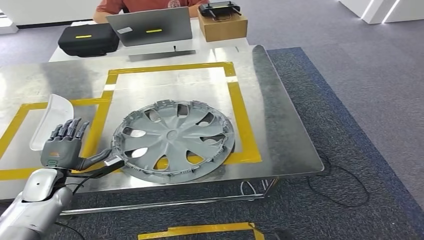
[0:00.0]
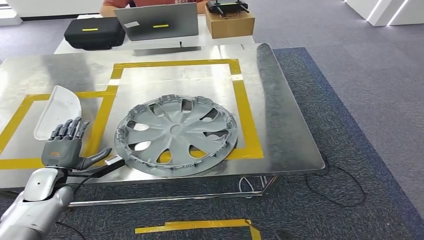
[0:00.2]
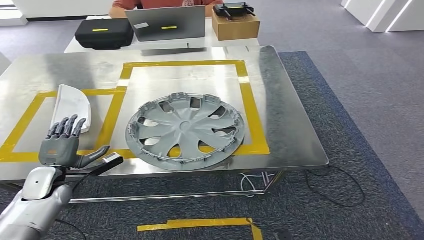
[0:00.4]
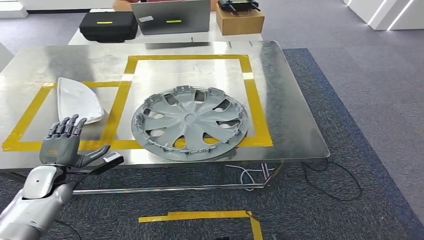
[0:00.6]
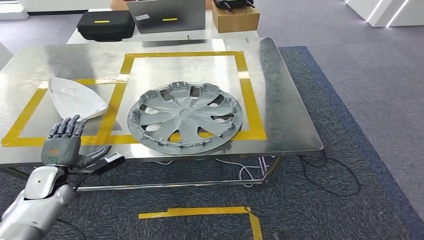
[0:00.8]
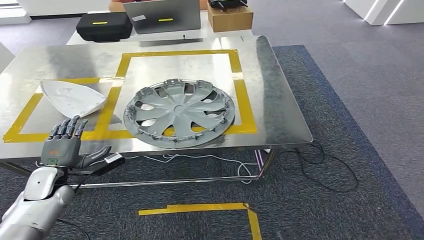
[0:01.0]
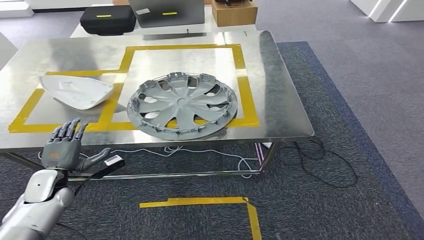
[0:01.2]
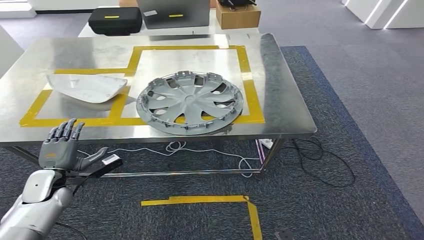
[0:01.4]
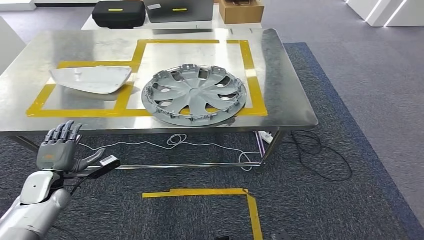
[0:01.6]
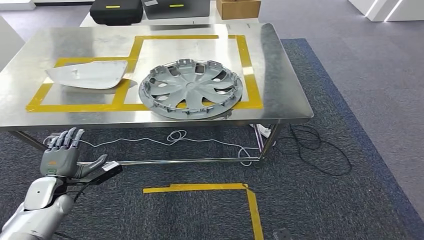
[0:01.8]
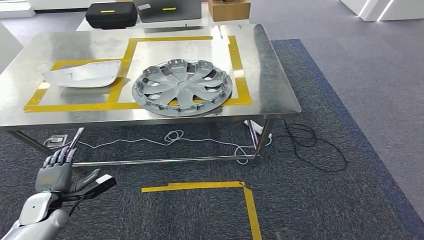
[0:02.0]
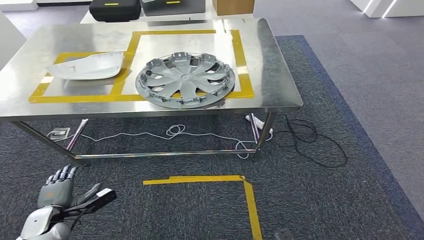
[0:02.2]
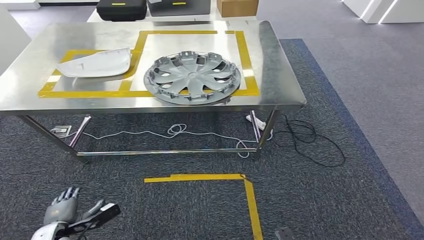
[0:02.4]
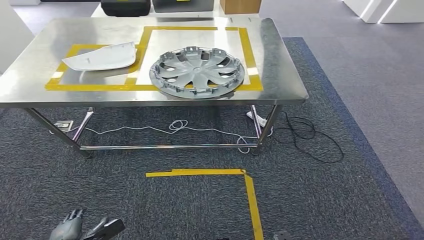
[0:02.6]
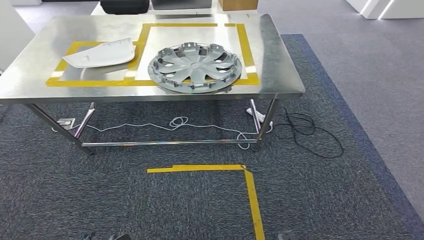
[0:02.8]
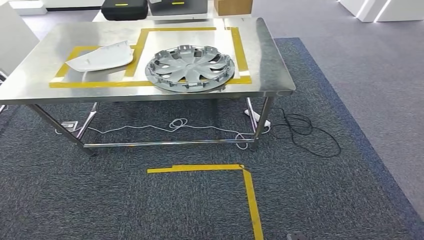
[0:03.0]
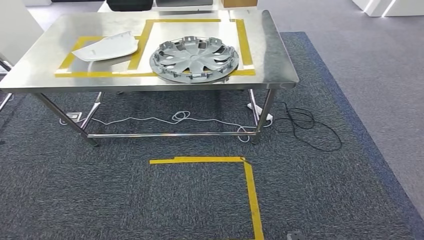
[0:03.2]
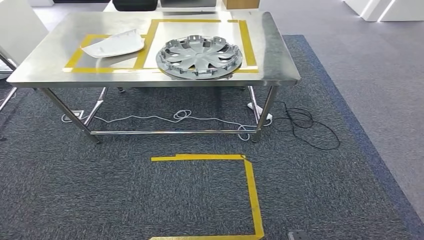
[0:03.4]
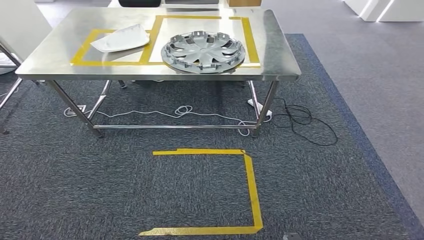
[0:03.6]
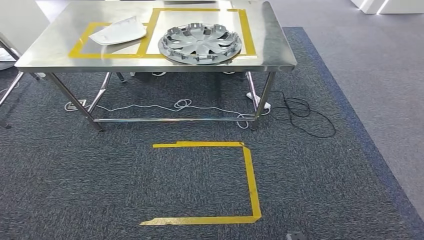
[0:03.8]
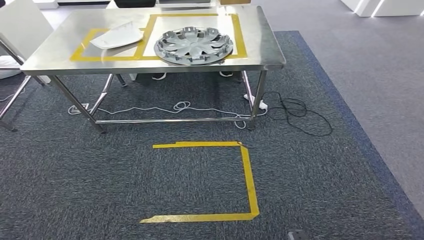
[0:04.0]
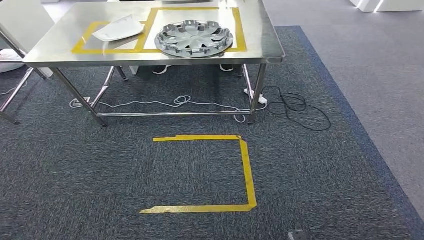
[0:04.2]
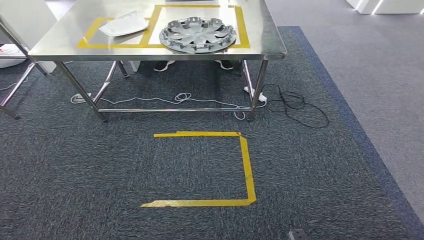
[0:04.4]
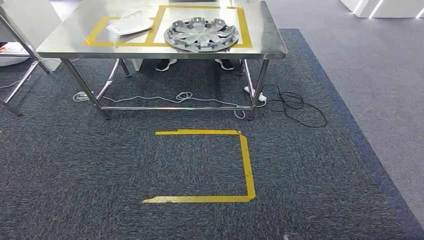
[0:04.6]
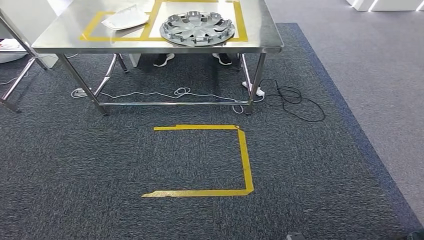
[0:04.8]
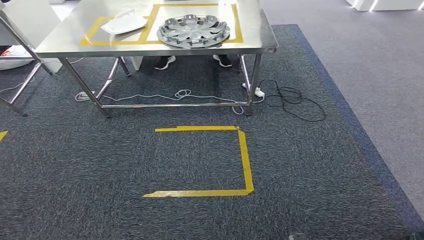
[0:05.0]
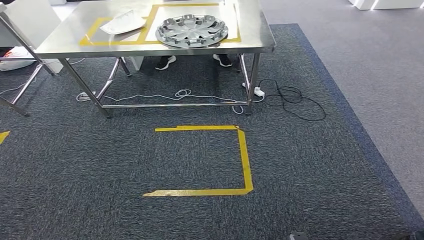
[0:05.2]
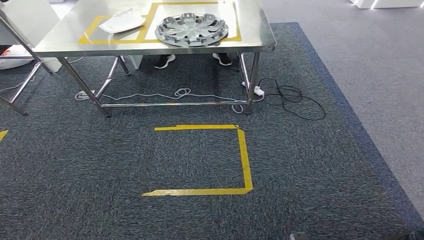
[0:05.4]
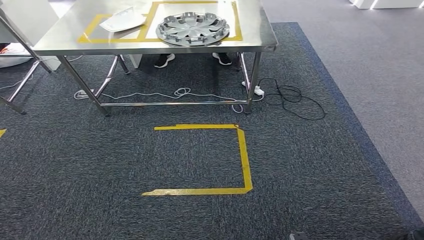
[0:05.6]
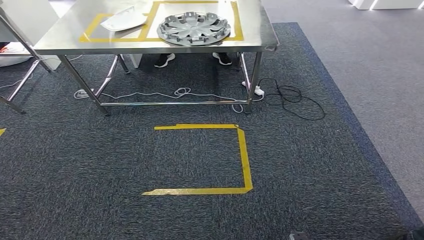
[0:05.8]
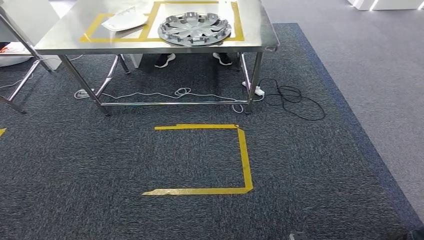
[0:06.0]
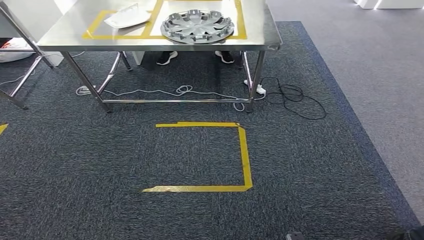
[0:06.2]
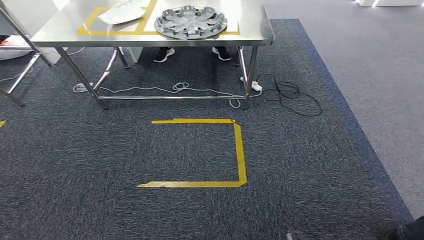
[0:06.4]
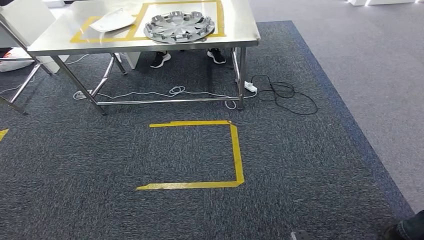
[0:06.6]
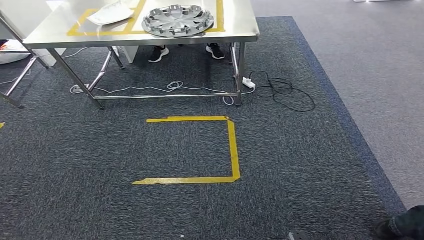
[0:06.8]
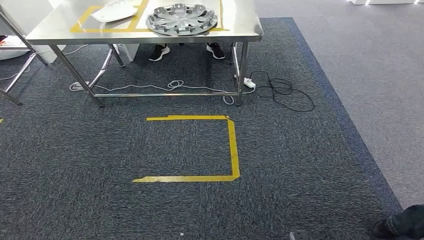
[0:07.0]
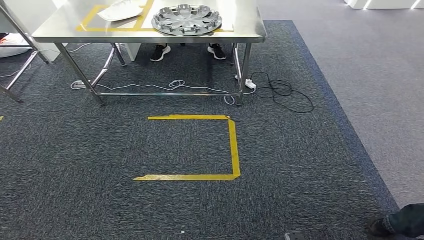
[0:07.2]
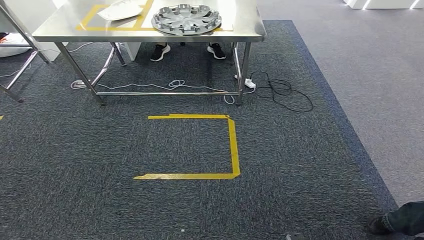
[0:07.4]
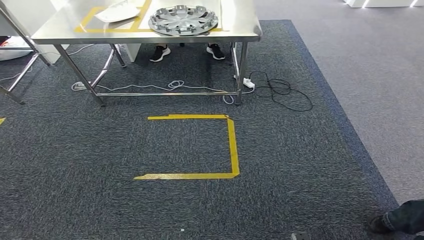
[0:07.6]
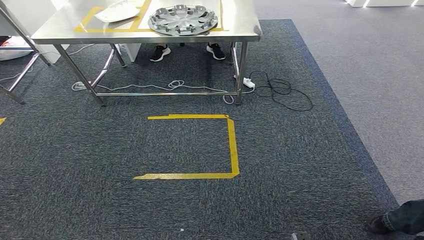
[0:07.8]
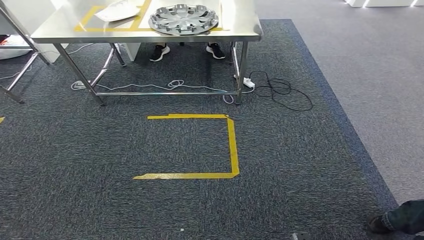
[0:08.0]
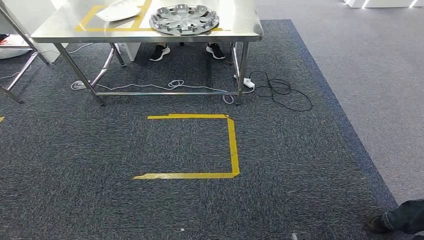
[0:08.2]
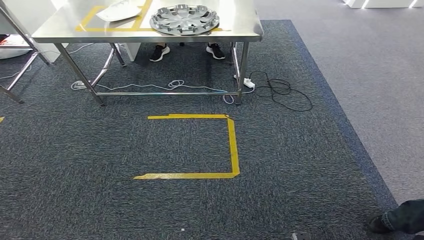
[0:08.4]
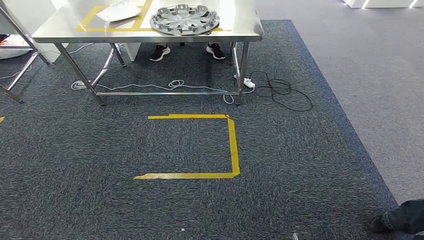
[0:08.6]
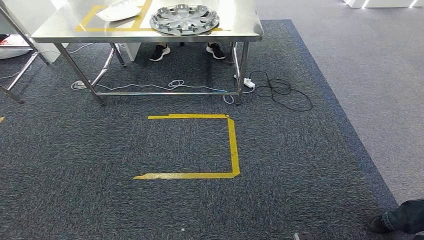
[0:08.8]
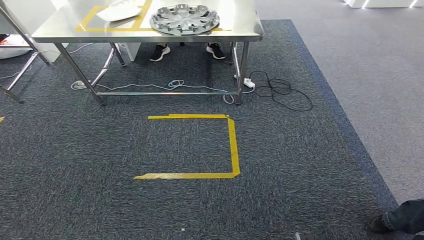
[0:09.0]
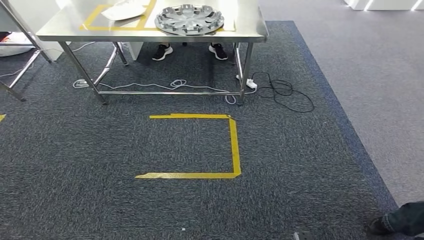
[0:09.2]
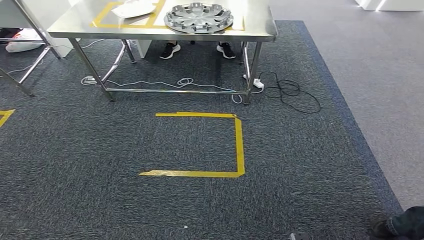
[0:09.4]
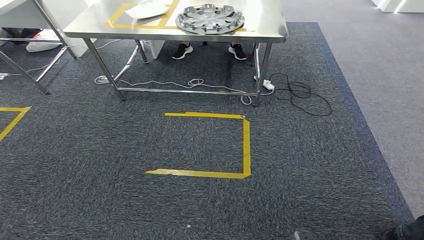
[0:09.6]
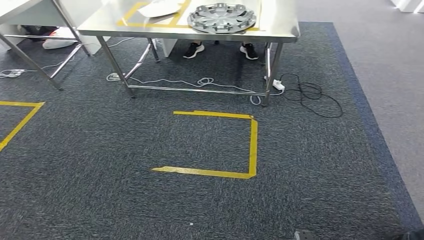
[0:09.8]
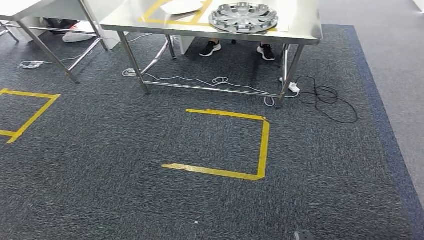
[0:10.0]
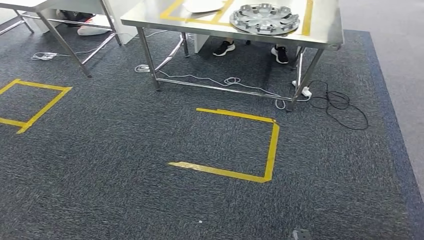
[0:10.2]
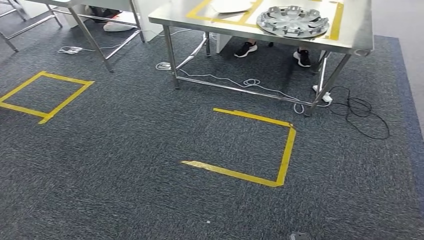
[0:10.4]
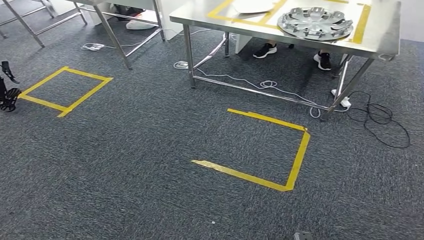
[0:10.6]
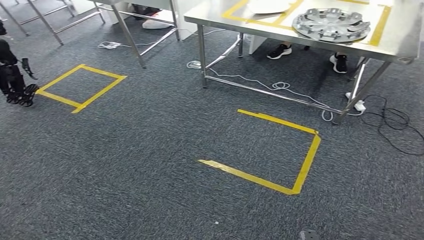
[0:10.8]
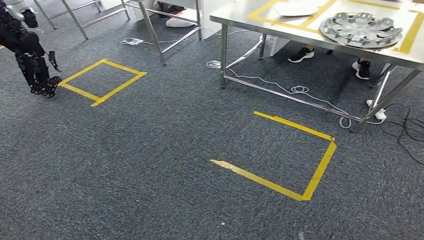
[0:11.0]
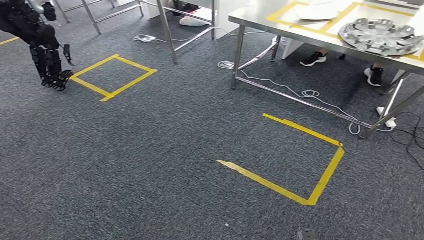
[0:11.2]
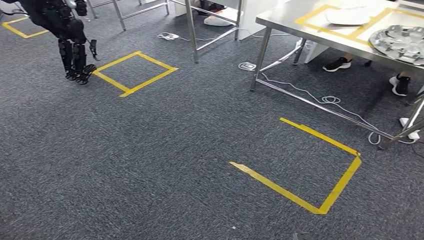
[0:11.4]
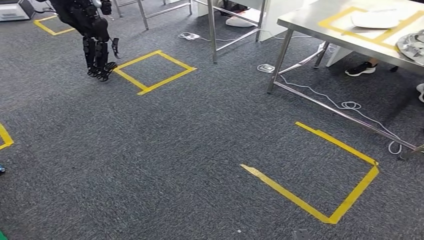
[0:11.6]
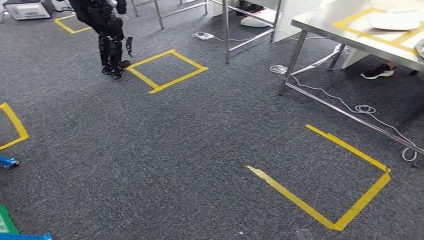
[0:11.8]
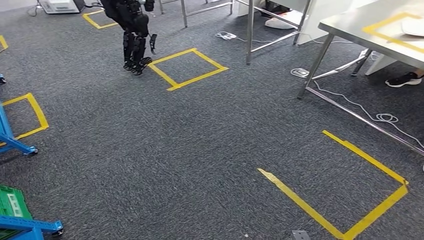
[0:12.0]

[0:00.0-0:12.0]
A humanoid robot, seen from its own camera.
0:04.4 to 0:06.0: Both hands stay put.
0:07.6 to 0:09.0: The hands stay close to where they were, moving slightly.

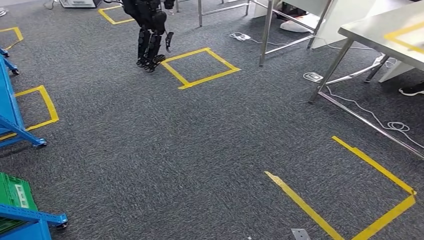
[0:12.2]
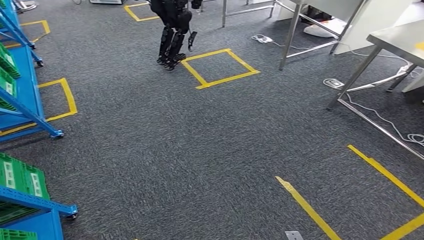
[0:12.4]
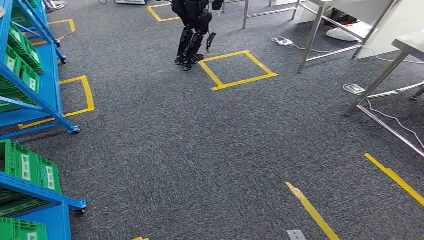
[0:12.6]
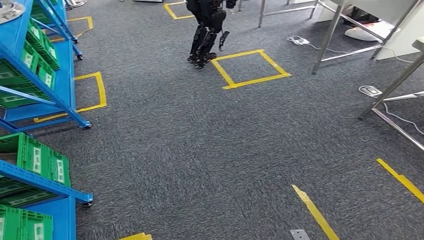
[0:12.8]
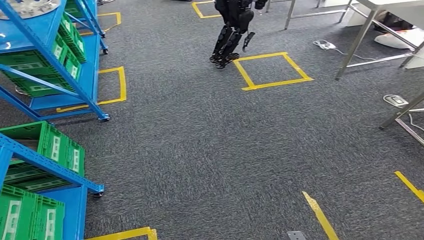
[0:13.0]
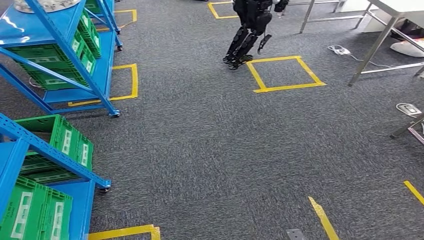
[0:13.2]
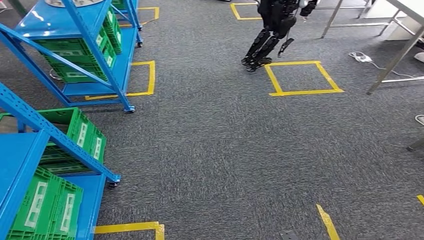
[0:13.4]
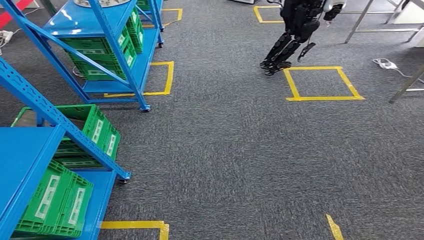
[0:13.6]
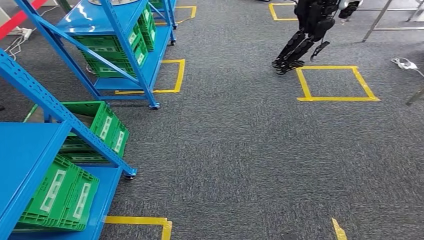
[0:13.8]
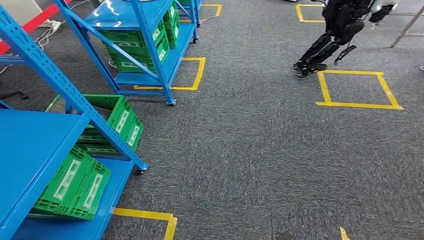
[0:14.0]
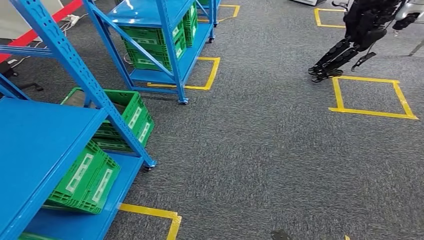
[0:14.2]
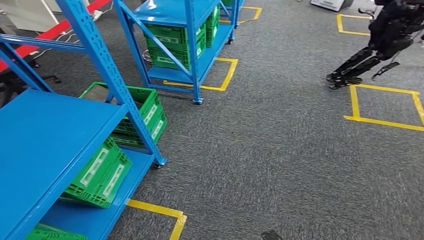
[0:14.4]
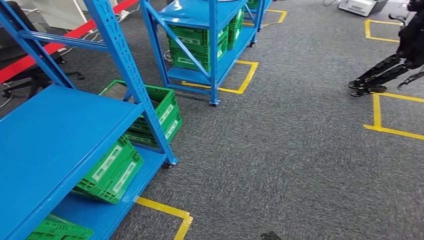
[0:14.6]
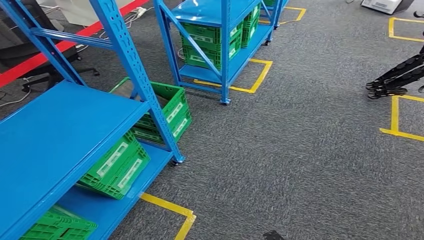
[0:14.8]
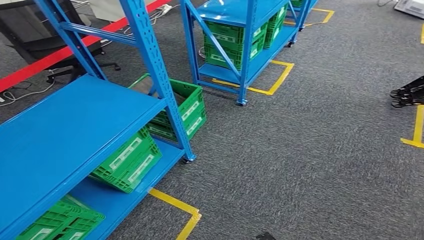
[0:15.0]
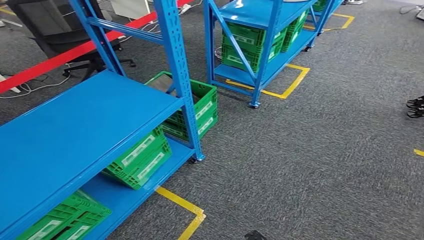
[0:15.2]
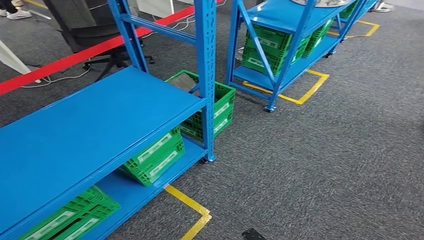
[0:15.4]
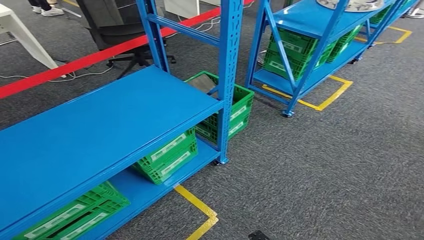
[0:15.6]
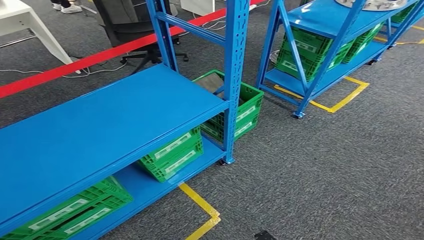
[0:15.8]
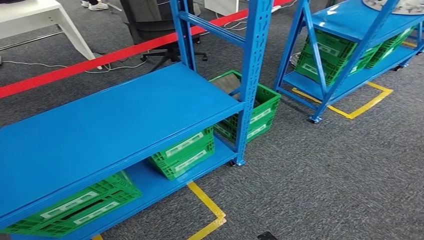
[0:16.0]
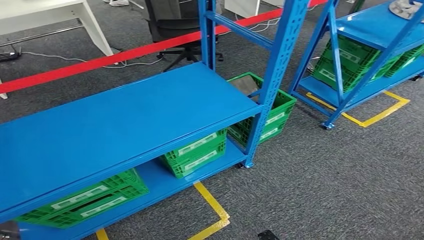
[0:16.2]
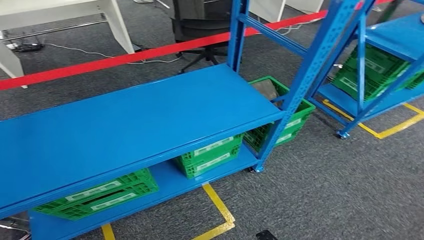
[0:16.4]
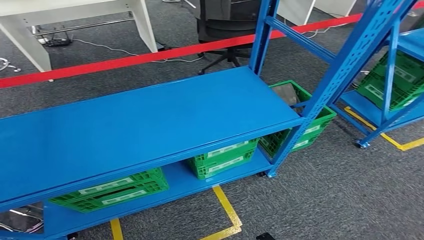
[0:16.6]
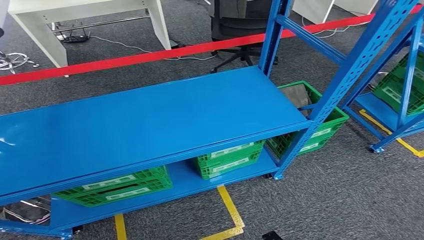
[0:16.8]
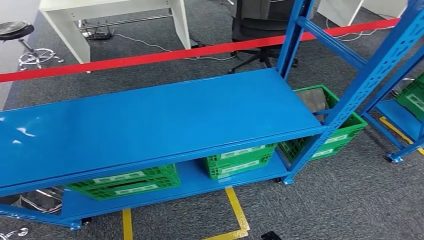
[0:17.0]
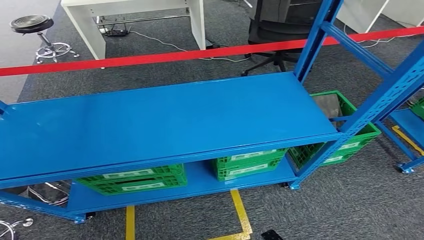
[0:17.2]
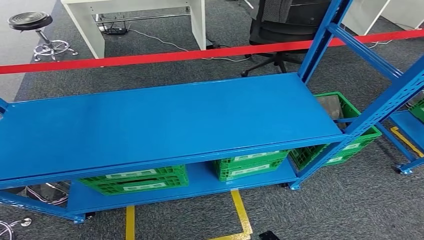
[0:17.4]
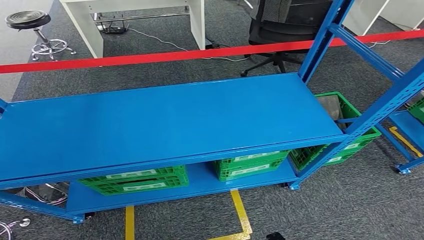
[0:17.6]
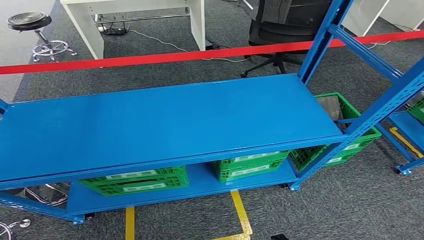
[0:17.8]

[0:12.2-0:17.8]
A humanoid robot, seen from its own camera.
Step, 0:12.2 to 0:17.8: Return to the initial position at the workbench.
